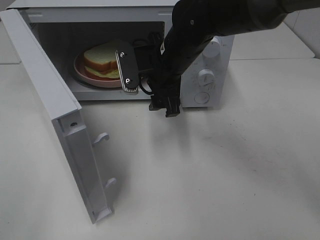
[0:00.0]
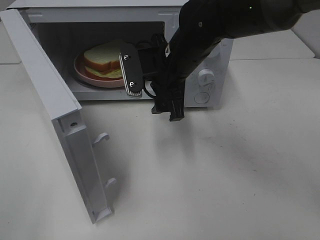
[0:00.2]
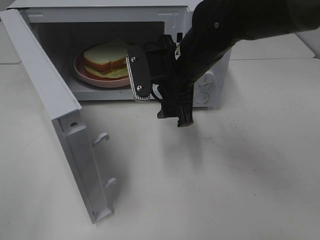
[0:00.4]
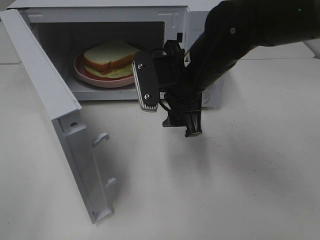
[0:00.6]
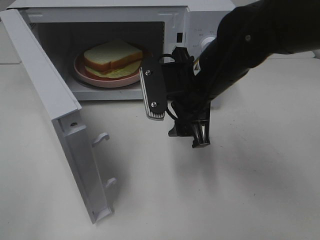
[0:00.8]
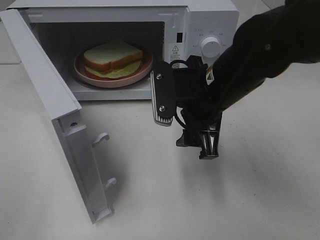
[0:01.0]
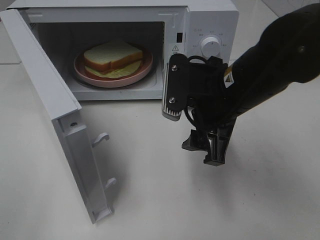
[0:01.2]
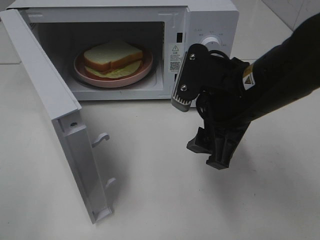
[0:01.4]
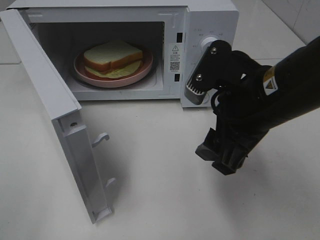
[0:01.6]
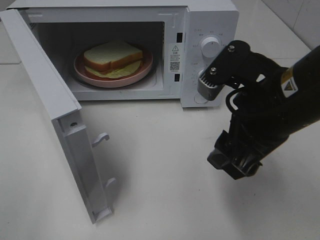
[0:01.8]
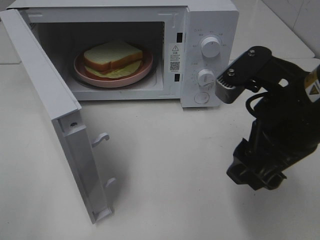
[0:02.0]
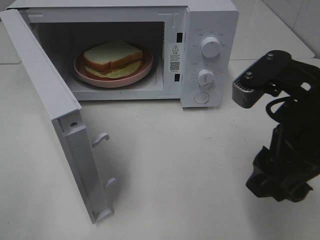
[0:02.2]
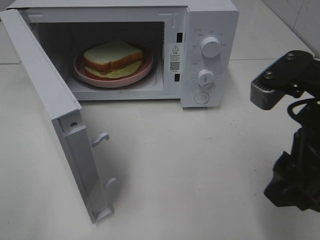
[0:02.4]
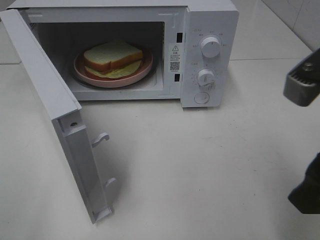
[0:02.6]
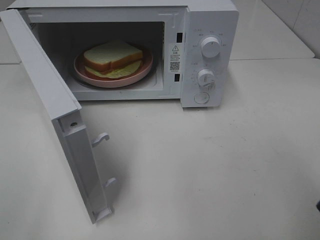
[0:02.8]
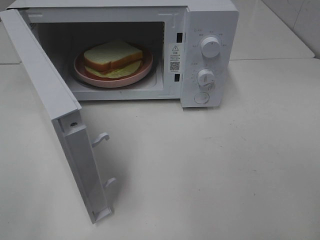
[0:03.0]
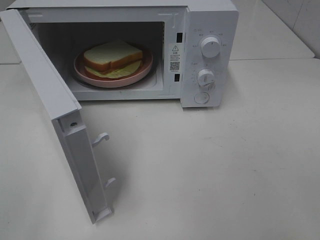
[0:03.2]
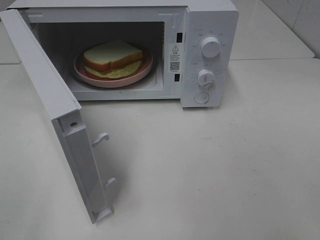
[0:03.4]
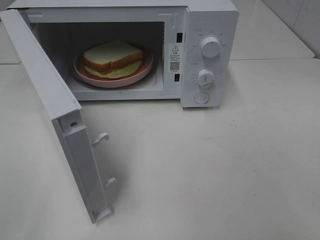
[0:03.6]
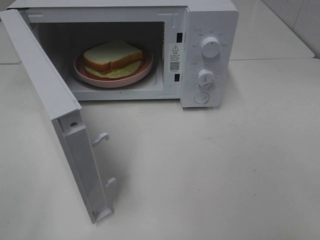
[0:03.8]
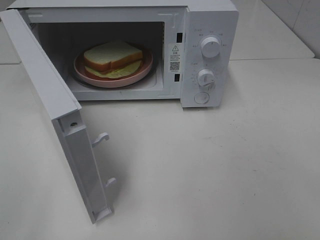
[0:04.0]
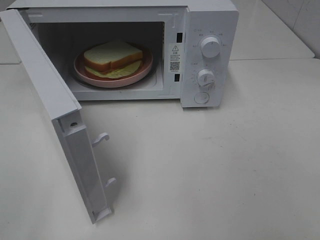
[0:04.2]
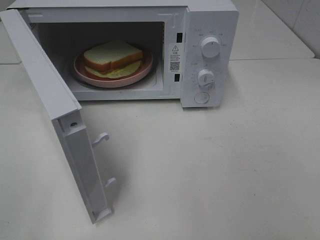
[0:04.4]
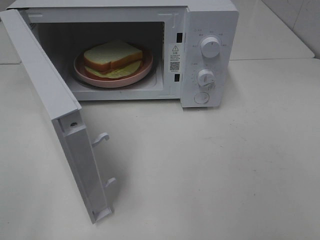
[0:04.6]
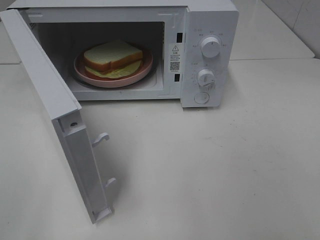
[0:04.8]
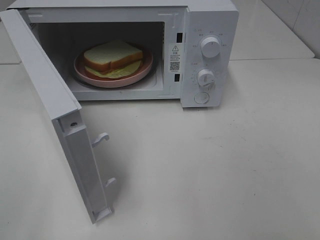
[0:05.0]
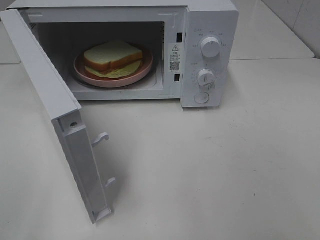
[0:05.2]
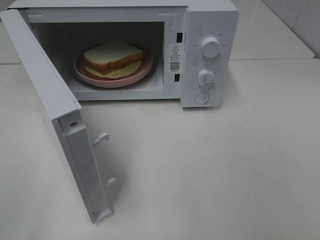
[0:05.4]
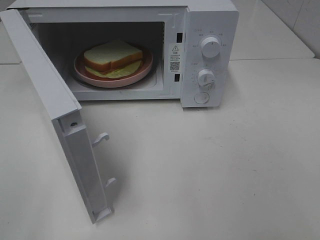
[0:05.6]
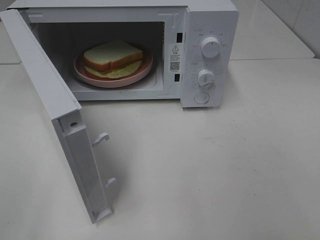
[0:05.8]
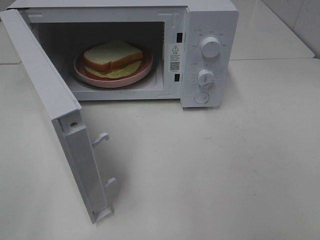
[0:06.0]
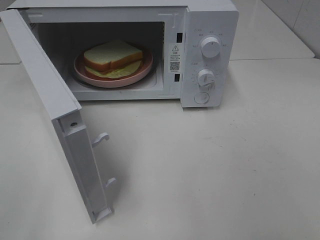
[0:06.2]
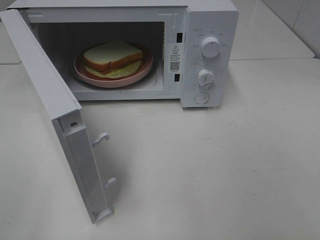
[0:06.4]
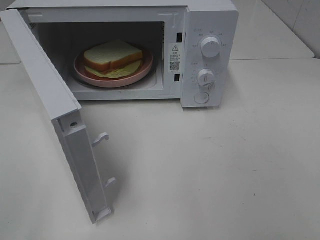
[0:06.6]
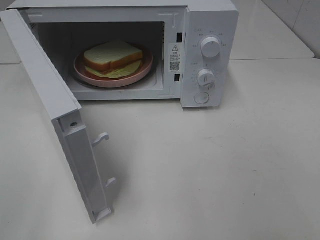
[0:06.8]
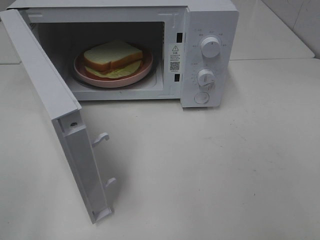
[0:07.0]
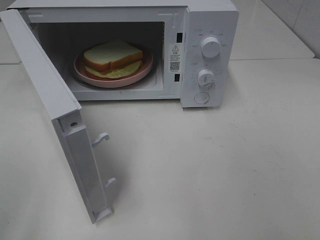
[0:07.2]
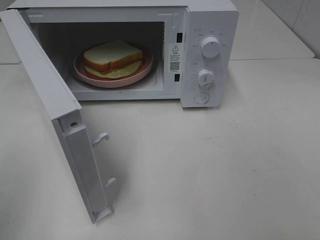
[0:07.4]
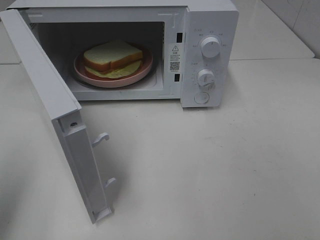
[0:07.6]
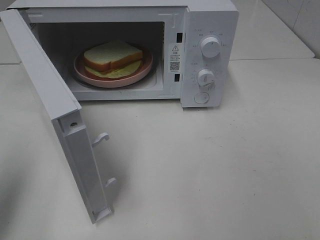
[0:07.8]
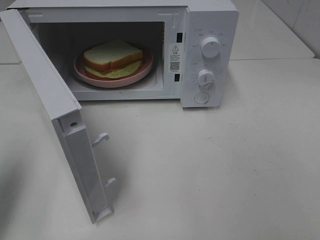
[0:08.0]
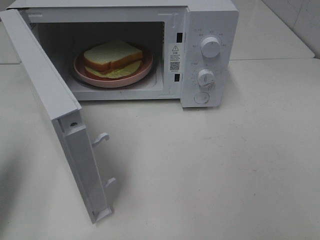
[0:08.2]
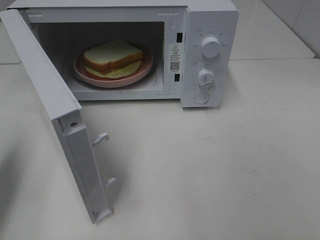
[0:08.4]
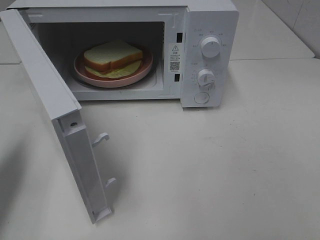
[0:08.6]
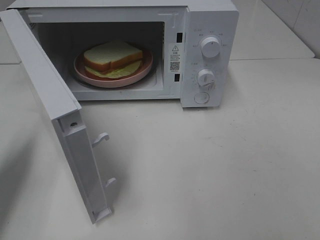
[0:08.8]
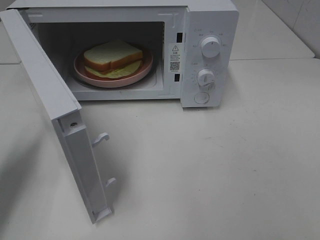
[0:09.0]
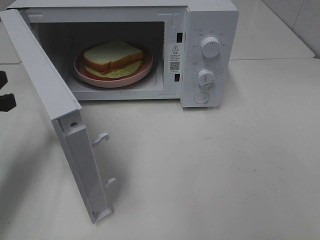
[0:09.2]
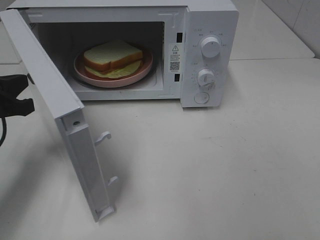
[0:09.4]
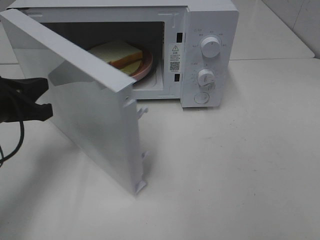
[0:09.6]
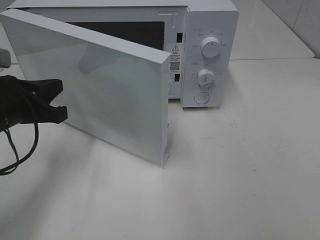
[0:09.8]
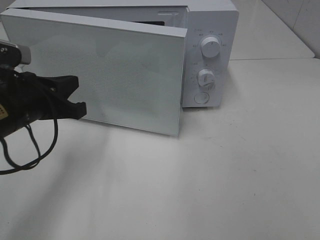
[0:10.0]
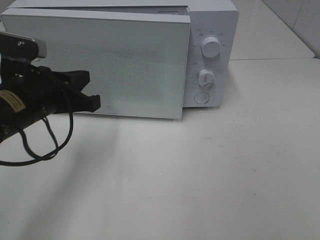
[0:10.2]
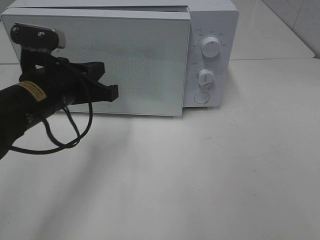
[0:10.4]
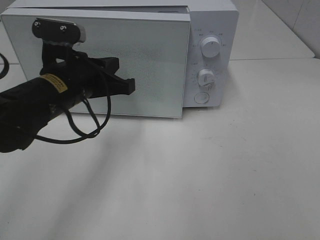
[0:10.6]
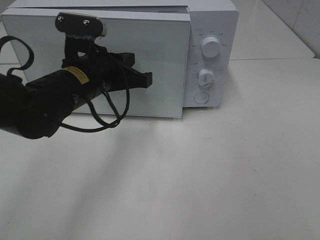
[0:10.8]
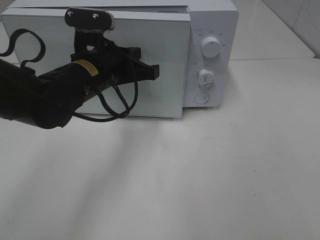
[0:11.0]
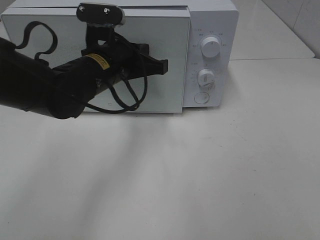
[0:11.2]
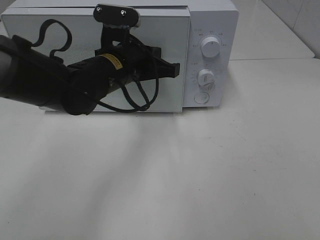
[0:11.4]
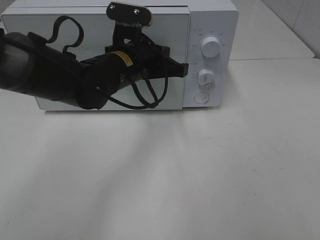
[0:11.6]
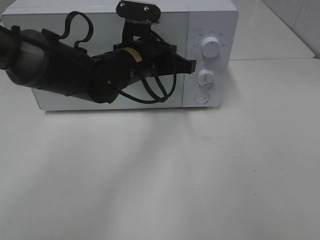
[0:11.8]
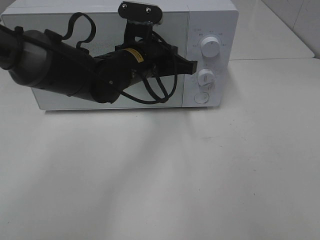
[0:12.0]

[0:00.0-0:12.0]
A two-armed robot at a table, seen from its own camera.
Task of the whole recording: Heat Sandwich.
0:00.0 to 0:01.6: The right gripper moves backward and to the right, about 20 cm.
0:01.6 to 0:03.0: The right gripper goes about 15 cm backward, to the right and upward.
0:06.0 to 0:07.6: The left gripper goes about 10 cm forward, and closes up.
0:07.6 to 0:09.0: The left gripper shifts approximately 15 cm forward and downward.
0:09.0 to 0:10.4: The left gripper travels to the right by roughly 15 cm.
0:10.4 to 0:12.0: The left gripper shifts some 15 cm to the right and forward.

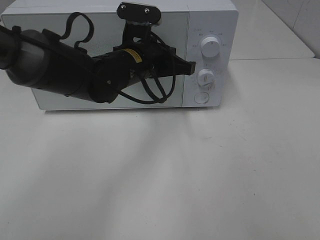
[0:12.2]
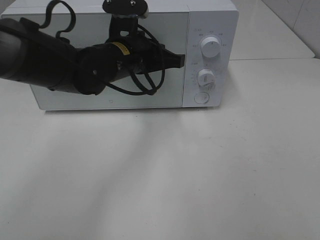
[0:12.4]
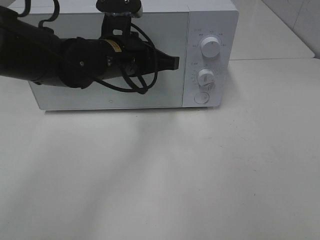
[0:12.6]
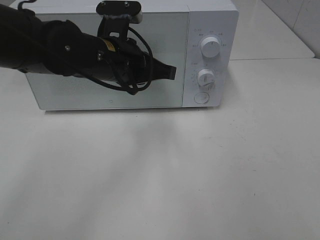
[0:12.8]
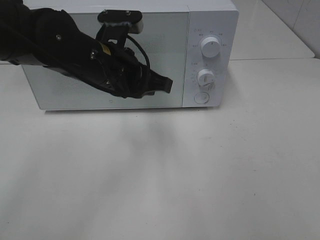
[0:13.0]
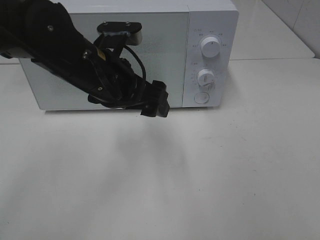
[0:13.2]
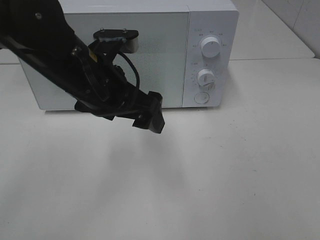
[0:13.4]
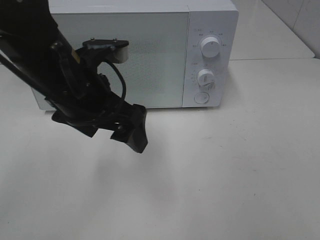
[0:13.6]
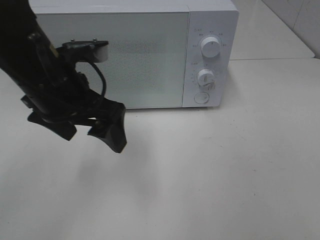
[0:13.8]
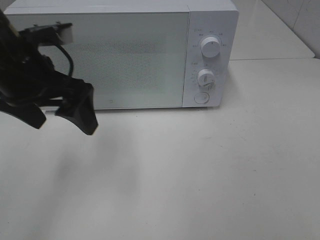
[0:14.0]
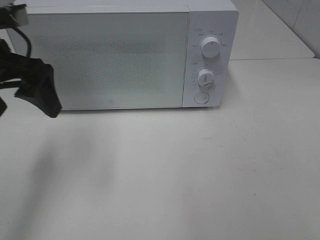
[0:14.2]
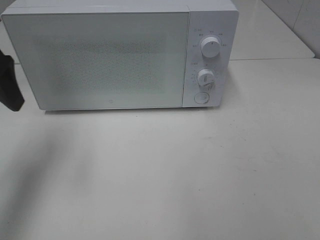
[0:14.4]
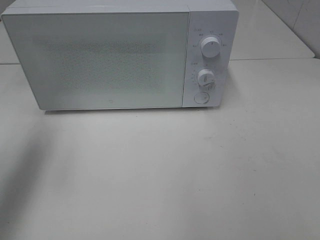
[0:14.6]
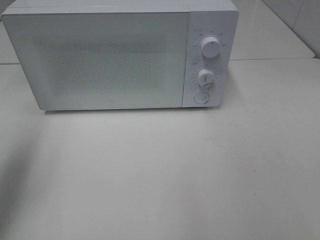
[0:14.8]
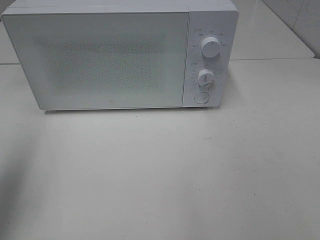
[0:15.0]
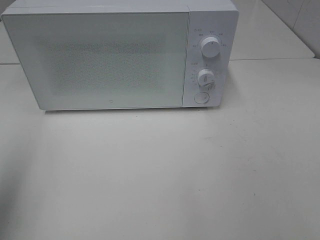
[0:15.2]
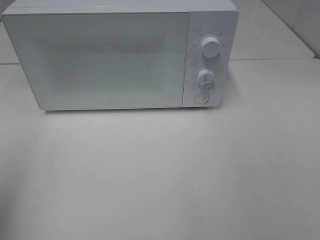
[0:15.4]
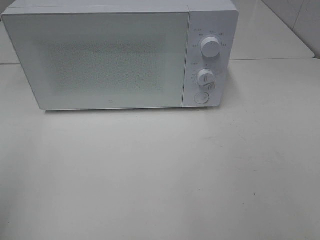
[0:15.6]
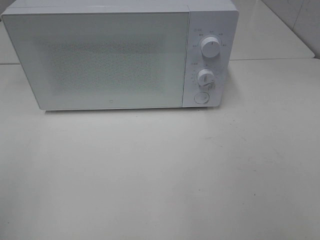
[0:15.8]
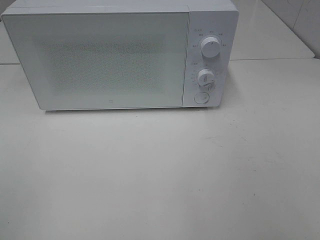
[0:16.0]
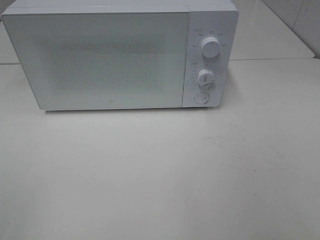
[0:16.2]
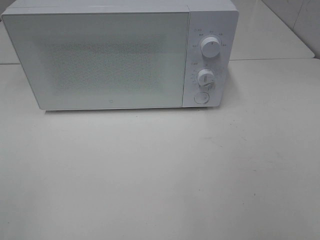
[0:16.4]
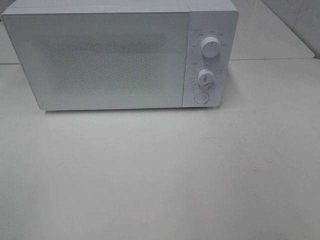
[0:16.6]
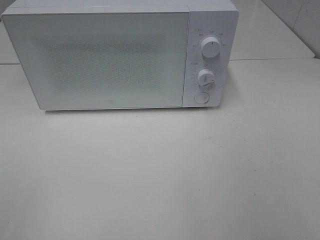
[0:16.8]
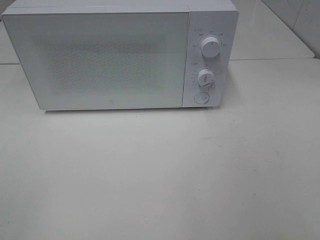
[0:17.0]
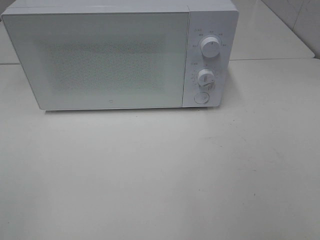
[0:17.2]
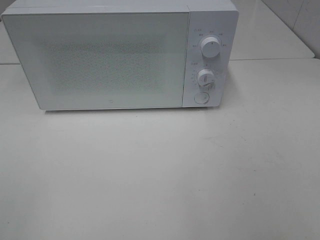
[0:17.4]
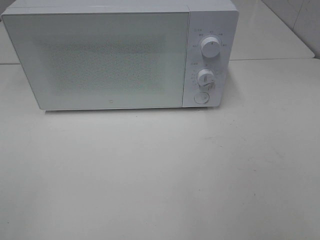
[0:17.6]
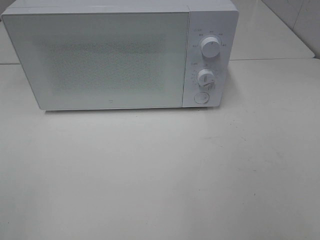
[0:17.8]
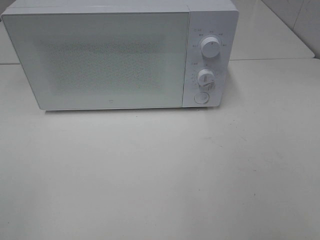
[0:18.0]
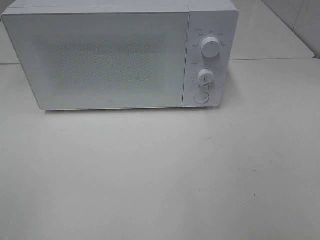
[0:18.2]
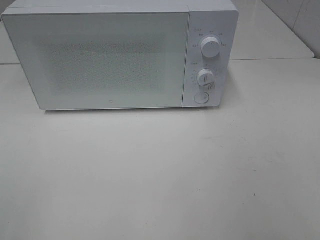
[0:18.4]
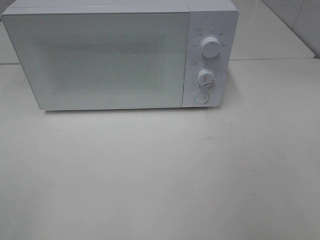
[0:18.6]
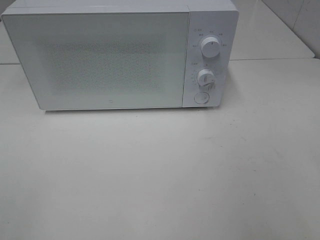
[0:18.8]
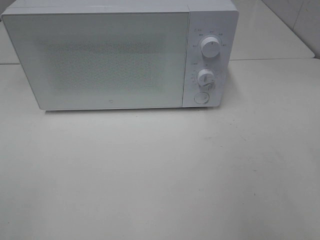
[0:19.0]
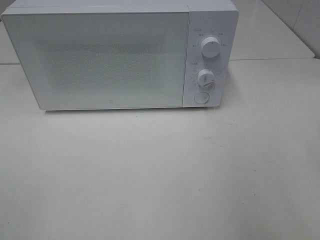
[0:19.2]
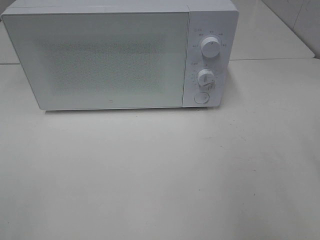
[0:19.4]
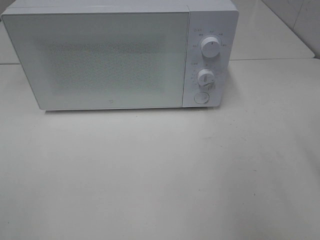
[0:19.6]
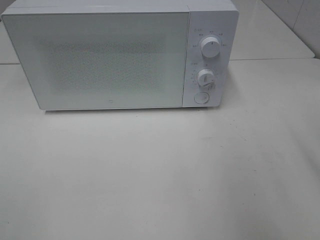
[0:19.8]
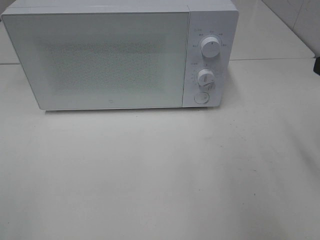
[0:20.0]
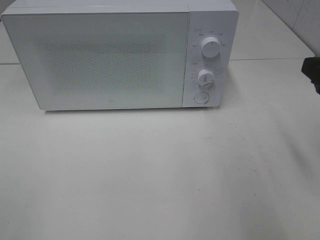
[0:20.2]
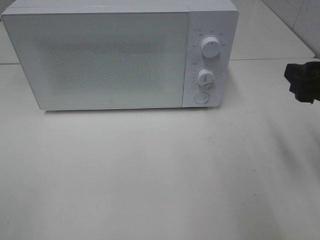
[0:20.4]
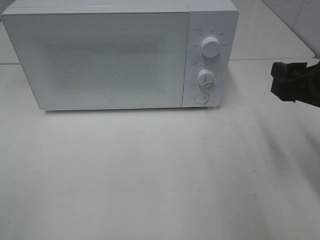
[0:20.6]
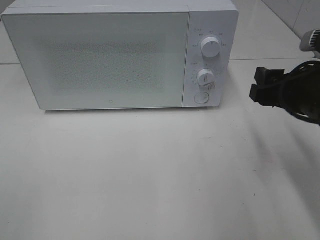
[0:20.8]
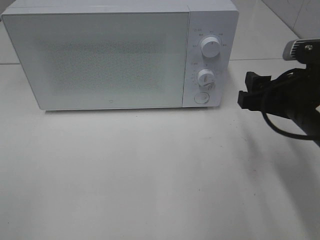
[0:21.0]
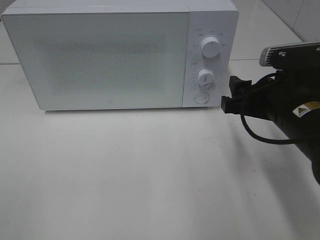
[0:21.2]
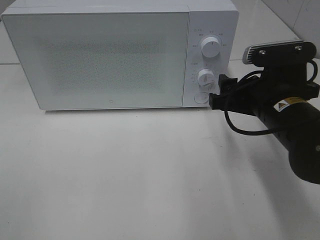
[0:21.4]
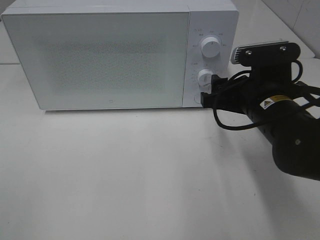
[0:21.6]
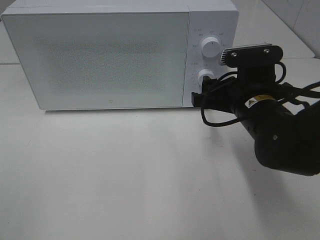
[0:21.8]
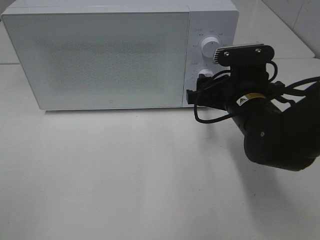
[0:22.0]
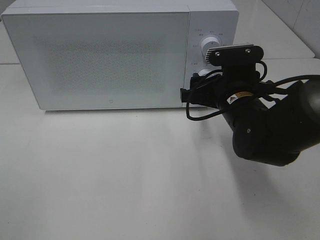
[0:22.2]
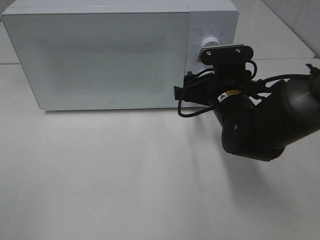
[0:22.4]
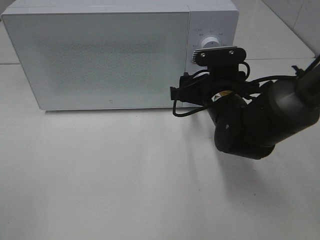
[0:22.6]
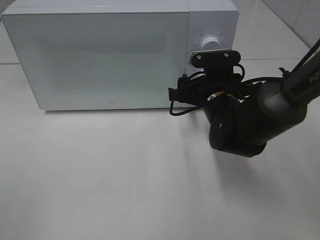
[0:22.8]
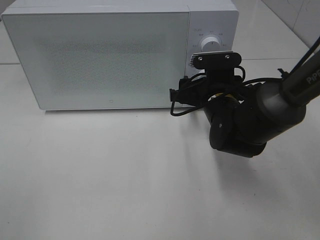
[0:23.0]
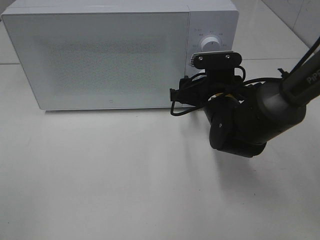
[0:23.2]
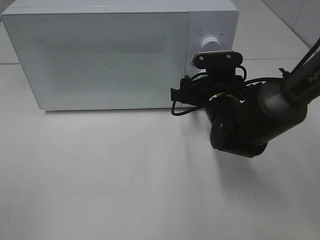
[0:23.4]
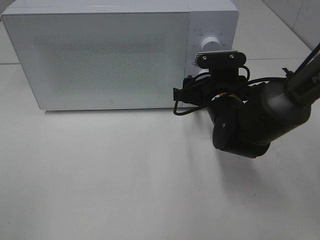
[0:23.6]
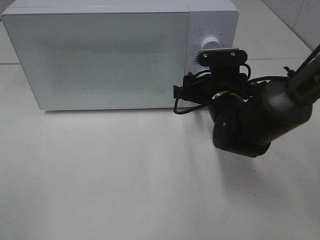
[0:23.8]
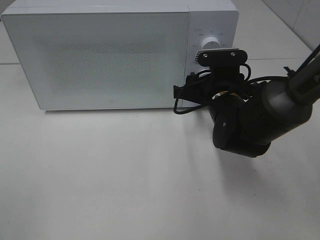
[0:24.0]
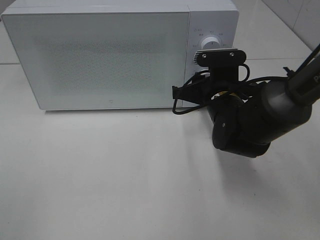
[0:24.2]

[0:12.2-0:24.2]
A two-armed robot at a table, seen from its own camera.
Task of the whole recording: Heat Sandwich.
0:12.2 to 0:13.8: The left gripper heads backward, to the left and upward, covering about 15 cm, and opens.
0:13.8 to 0:15.2: The left gripper goes roughly 25 cm to the left, backward and upward.
0:15.2 to 0:16.6: The left gripper goes about 15 cm backward.
0:16.6 to 0:18.2: Neither gripper changes place.
0:19.8 to 0:21.2: The right gripper goes some 15 cm downward, to the left and forward.
0:21.2 to 0:22.6: The right gripper goes about 10 cm forward, to the left and downward.
0:22.6 to 0:24.2: The right gripper closes its fingers.
